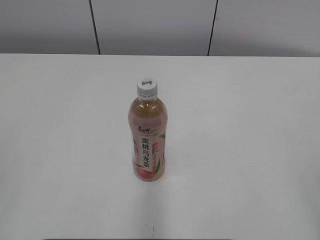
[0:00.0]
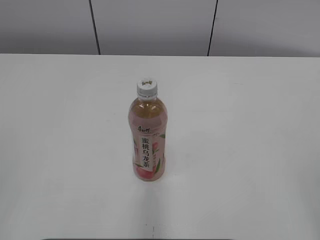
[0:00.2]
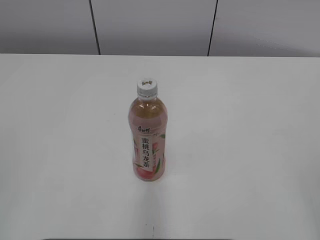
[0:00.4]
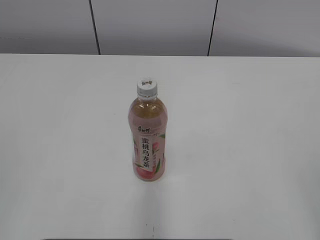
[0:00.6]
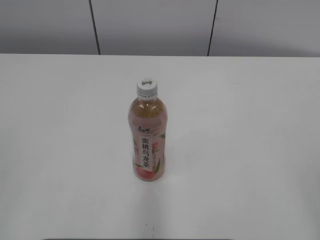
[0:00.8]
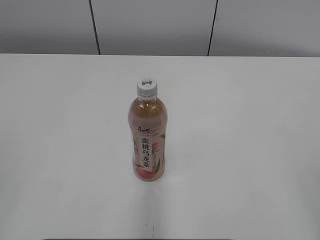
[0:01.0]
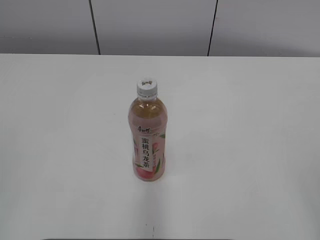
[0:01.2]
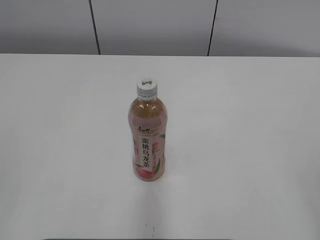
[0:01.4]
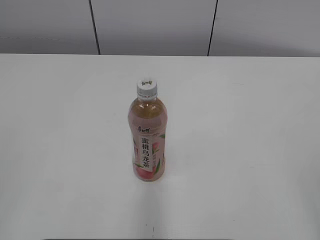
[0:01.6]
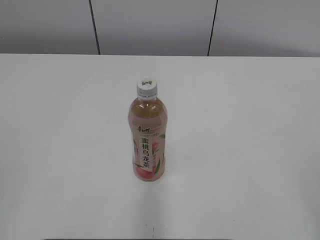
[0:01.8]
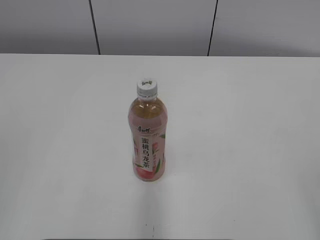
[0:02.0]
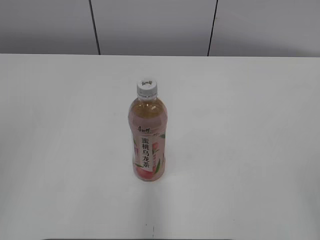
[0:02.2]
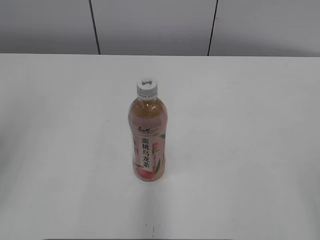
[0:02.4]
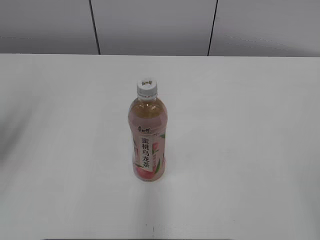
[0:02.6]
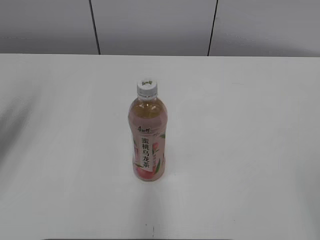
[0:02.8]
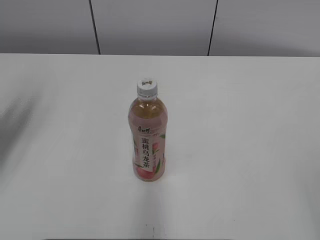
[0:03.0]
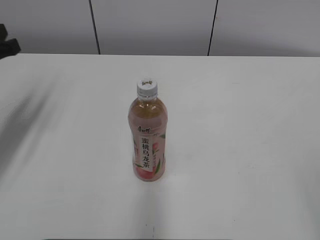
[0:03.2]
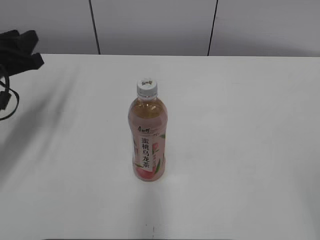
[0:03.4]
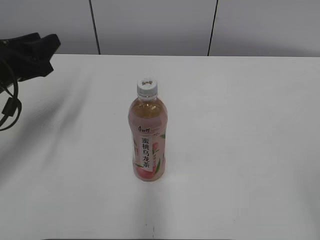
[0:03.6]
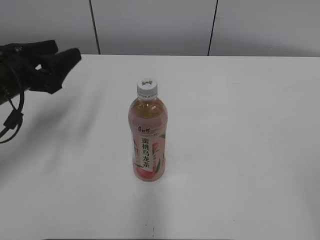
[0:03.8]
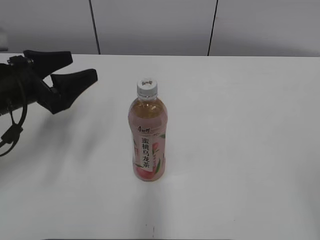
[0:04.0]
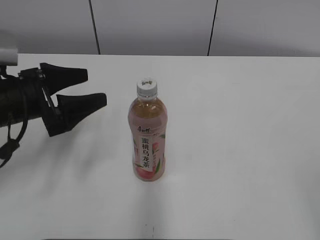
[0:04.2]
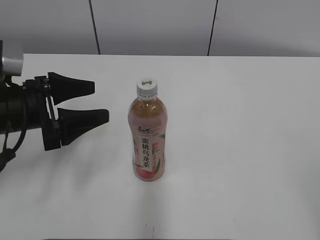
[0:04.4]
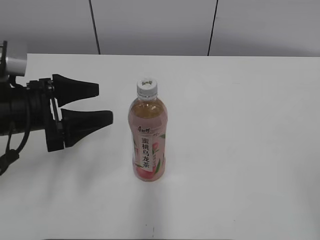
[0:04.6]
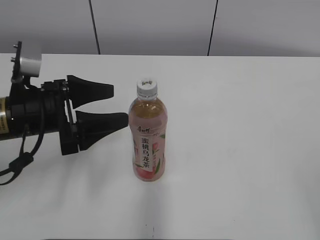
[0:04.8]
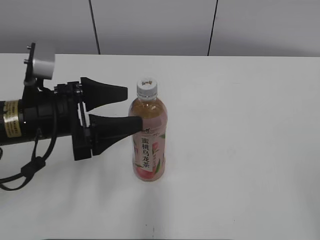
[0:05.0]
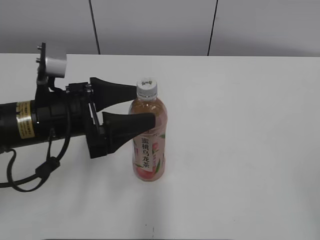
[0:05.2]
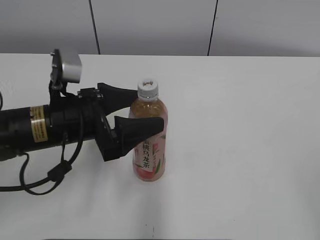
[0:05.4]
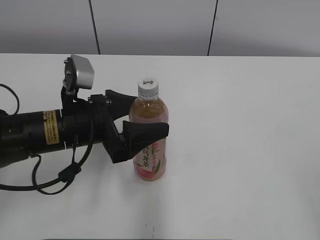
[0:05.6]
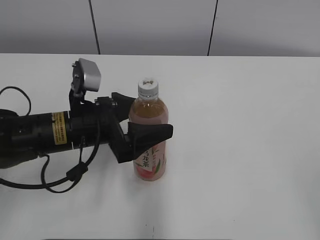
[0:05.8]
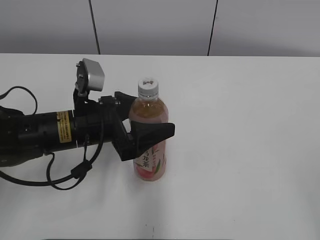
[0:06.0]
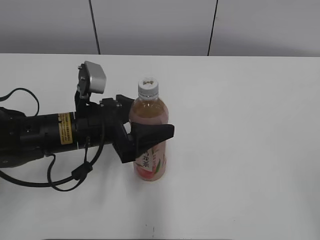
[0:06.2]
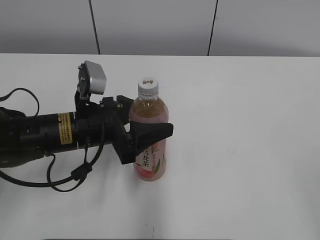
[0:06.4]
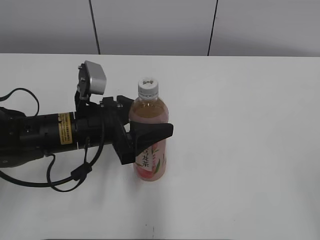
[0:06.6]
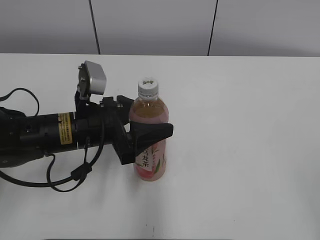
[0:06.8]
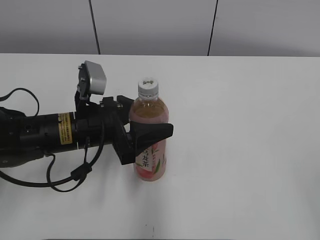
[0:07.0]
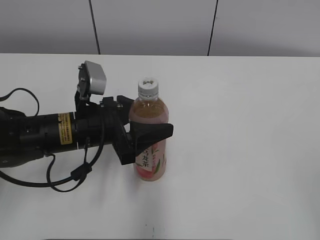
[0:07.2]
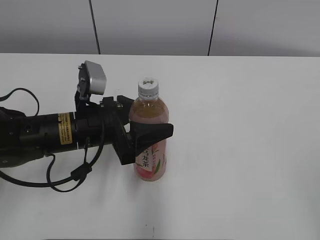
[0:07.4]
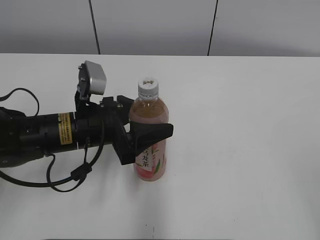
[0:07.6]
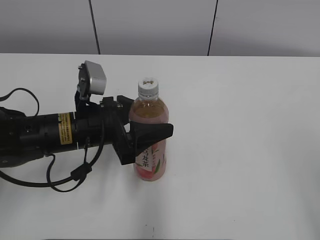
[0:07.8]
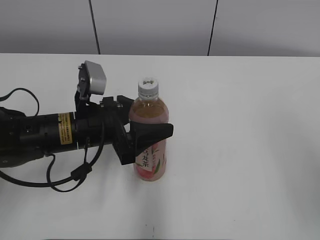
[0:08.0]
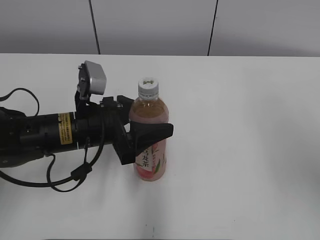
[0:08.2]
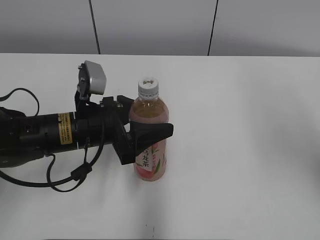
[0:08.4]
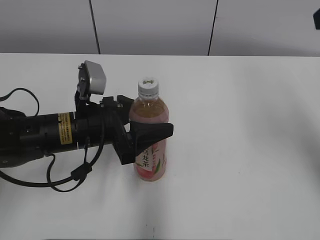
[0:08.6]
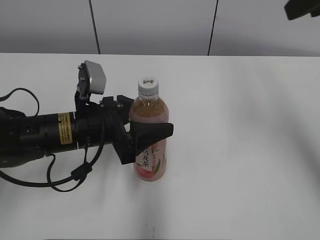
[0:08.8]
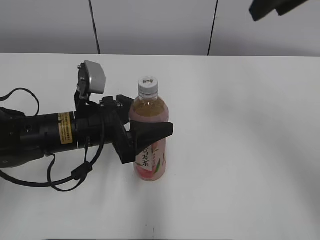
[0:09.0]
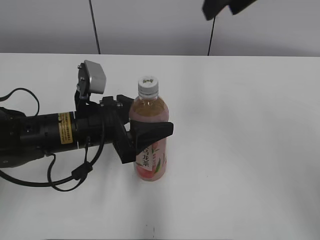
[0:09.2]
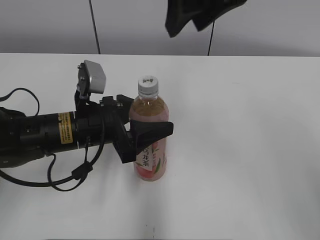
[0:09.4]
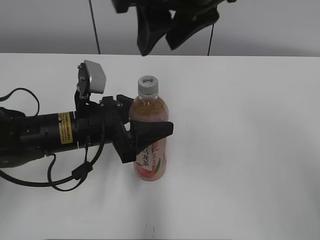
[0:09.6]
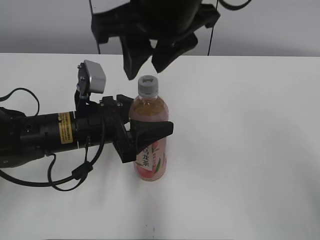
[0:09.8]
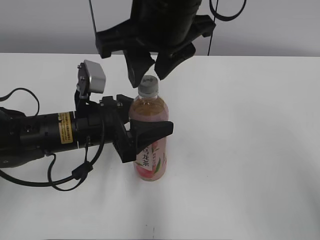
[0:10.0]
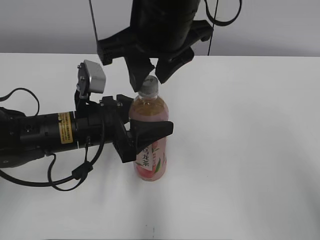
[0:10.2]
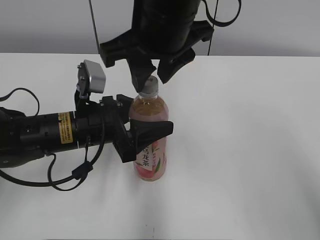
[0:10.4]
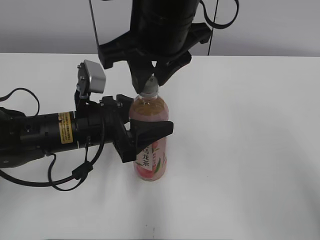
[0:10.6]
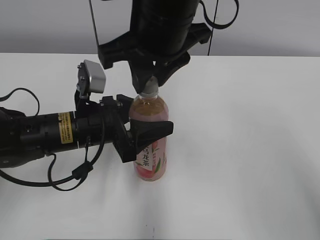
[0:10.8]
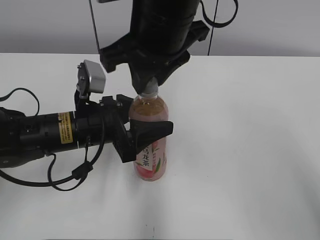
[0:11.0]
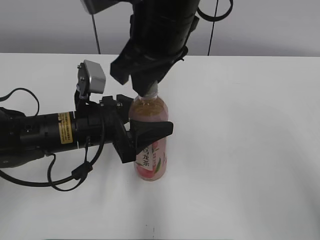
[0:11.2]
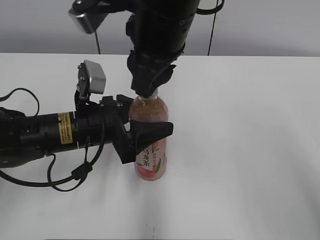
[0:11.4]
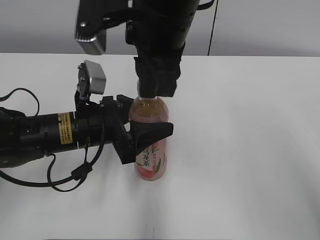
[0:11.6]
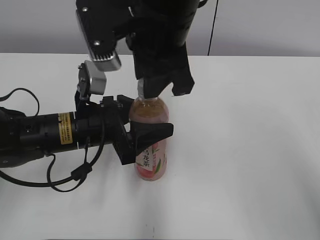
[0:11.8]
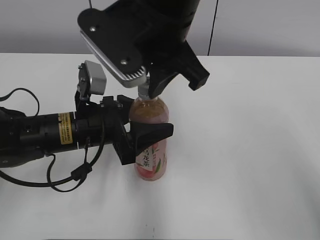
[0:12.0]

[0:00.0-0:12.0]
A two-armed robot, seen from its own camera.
Step, 0:00.0 to 0:06.6: Grab the Peach Oolong Tea with the left hand.
0:01.6 to 0:03.0: The left gripper shifts some 25 cm forward.
0:03.0 to 0:04.4: The left gripper travels downward and to the right by about 15 cm, and opens its fingers.
0:04.4 to 0:06.0: The left gripper goes approximately 10 cm to the right.
0:06.0 to 0:07.6: The left gripper closes up.
0:07.6 to 0:09.0: The right gripper is displaced forward by about 30 cm, and closes up.
0:09.0 to 0:10.4: The right gripper moves to the left and downward, some 20 cm.

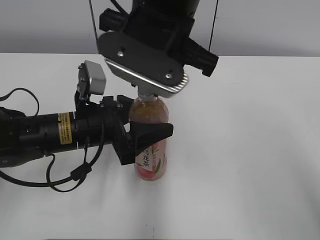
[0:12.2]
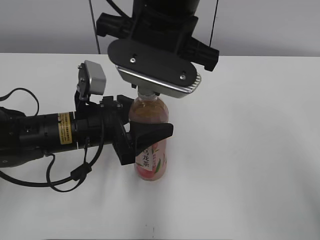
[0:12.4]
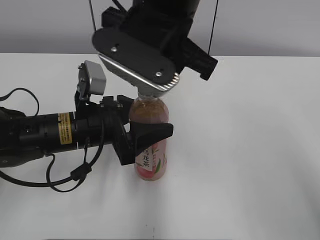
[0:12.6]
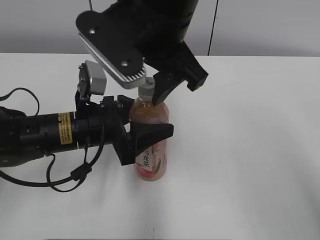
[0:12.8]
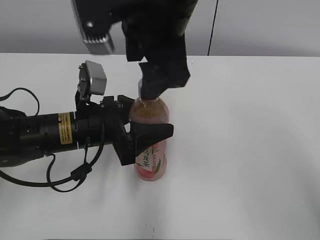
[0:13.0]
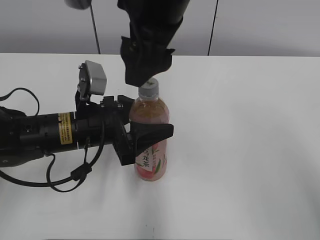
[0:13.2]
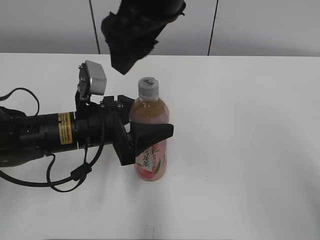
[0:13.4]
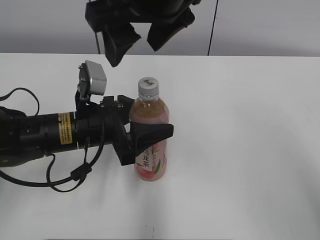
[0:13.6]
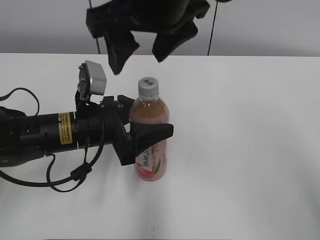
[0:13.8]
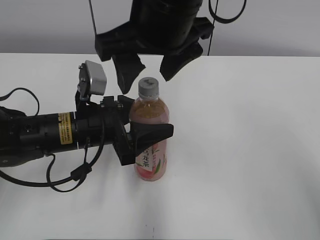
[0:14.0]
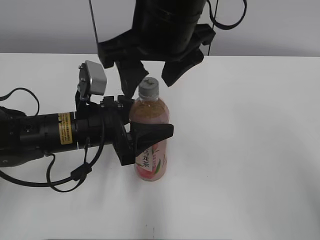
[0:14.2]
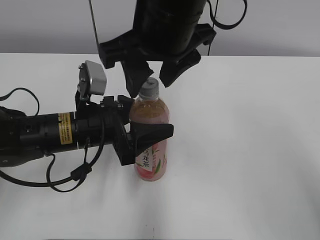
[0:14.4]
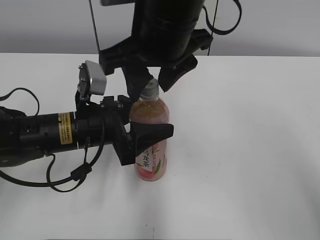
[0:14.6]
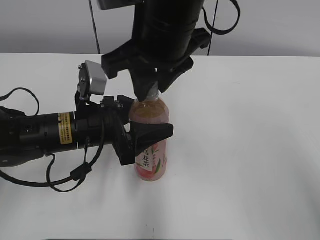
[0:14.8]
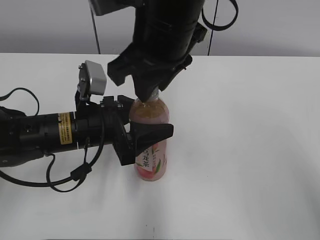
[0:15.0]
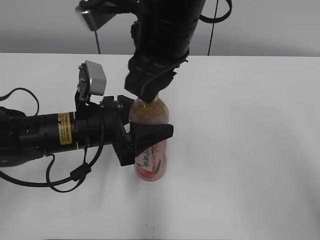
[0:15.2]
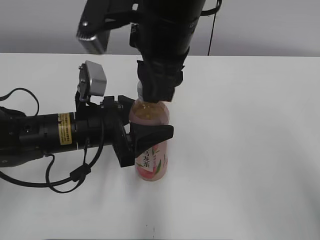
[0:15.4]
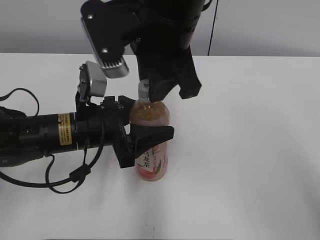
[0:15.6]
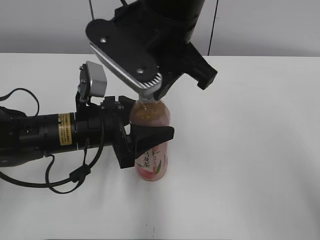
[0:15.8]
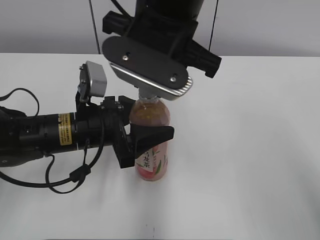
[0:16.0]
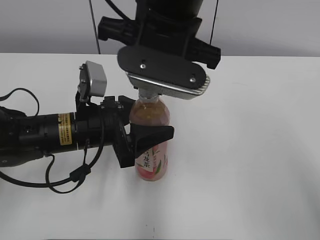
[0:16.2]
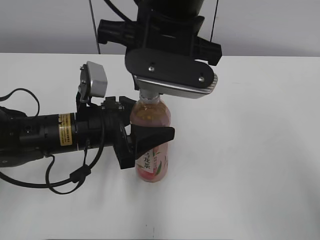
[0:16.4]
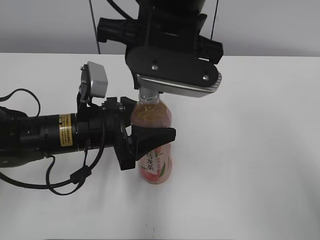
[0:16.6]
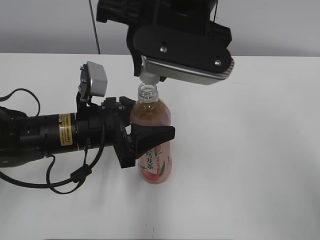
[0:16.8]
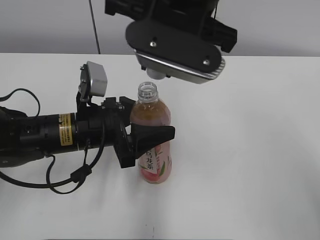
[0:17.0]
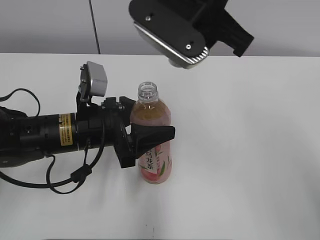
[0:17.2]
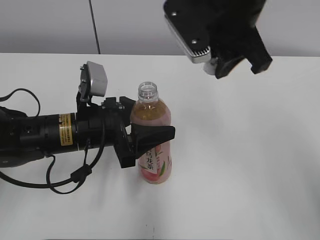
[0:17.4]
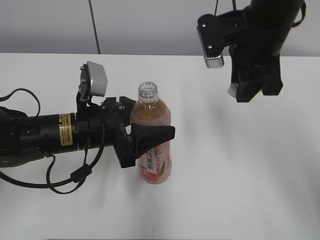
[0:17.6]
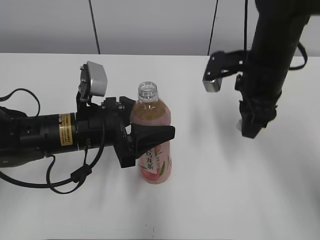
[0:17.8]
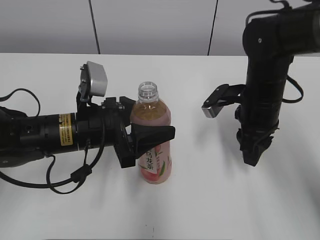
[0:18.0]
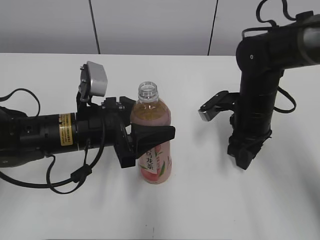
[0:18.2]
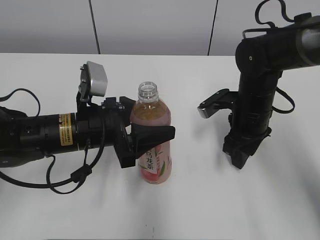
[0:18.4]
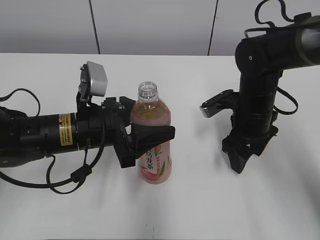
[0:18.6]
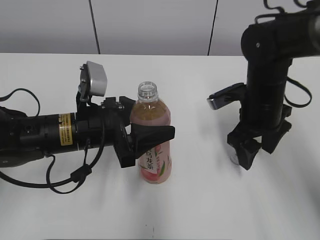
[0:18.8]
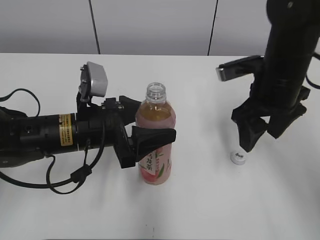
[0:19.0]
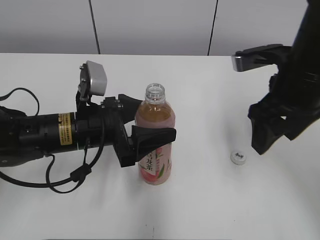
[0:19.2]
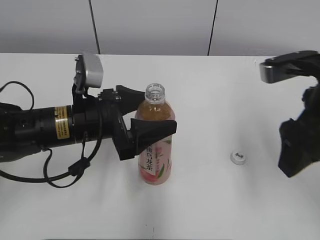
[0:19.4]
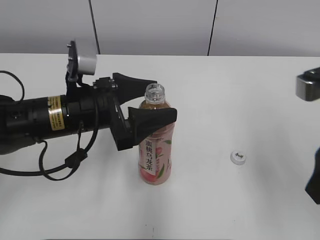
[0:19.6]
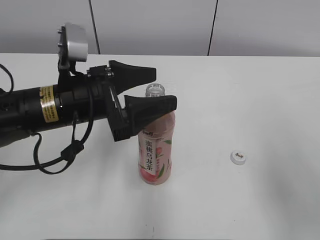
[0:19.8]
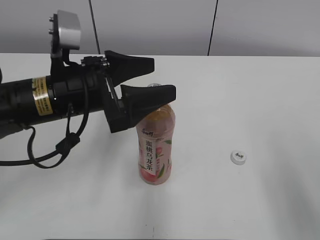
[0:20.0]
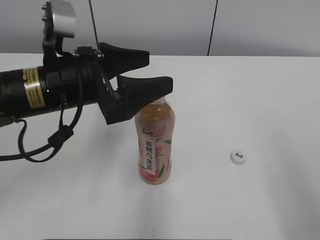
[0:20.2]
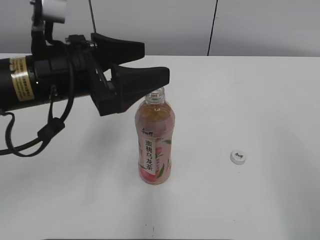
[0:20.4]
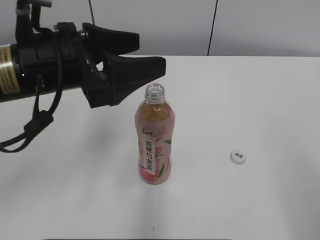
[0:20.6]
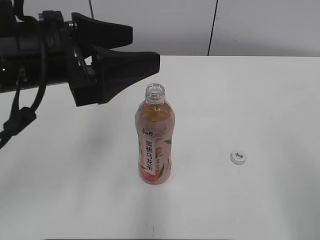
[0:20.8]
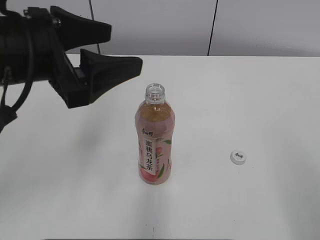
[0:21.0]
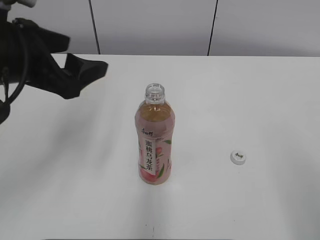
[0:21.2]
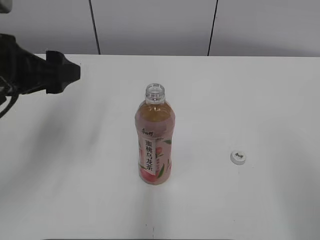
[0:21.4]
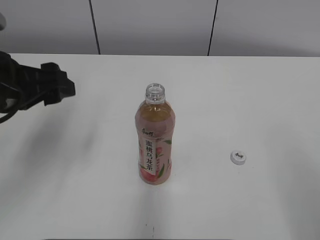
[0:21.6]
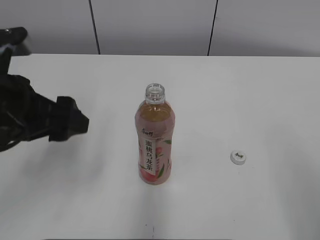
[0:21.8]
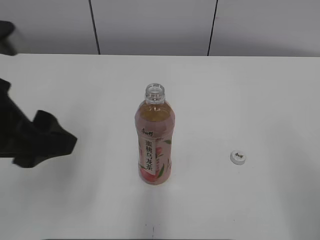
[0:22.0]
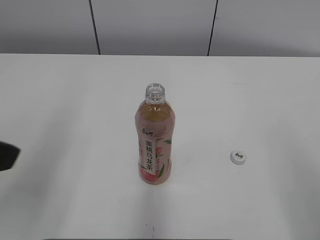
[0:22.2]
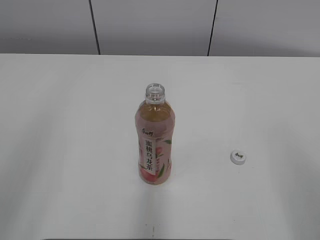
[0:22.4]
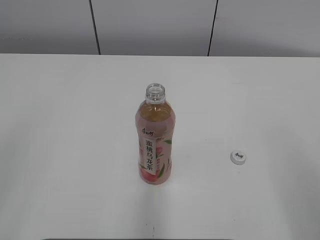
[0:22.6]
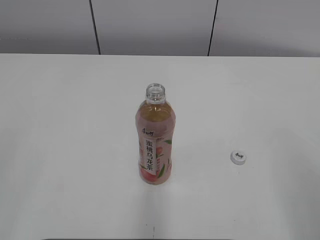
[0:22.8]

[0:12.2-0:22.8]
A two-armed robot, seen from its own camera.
Step, 0:17.4 to 0:18.6: Place the bottle cap on the right.
0:12.2 to 0:13.8: The right gripper opens.
0:13.8 to 0:15.2: The right gripper closes.
0:16.8 to 0:18.2: The right gripper moves downward and to the right, about 25 cm.
0:18.2 to 0:19.8: The right gripper shifts approximately 25 cm backward and upward, and opens up. The left gripper travels upward by about 5 cm, and opens.
0:19.8 to 0:21.2: The right gripper goes some 10 cm backward. The left gripper travels upward and to the left by about 10 cm.
0:21.2 to 0:22.8: The left gripper goes about 25 cm backward and to the left.
